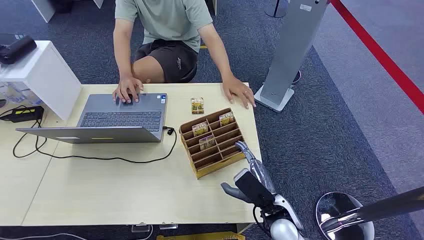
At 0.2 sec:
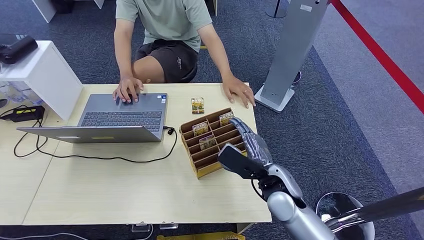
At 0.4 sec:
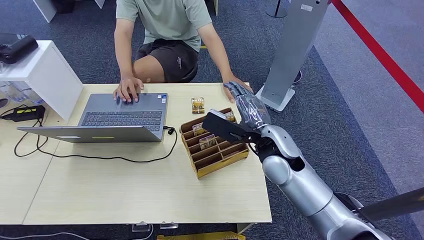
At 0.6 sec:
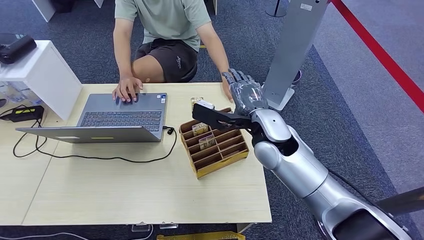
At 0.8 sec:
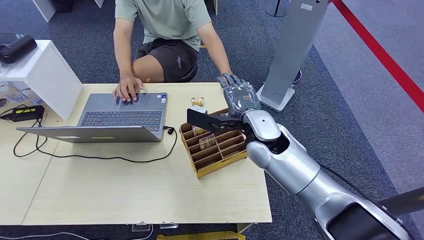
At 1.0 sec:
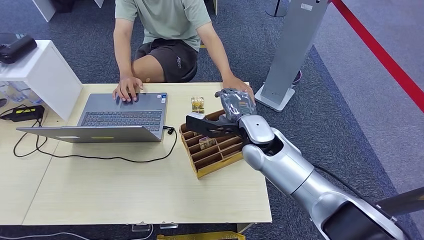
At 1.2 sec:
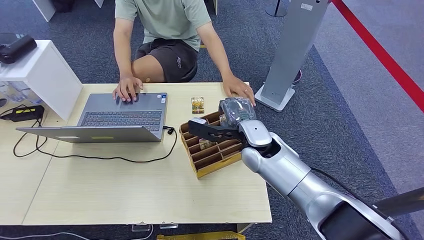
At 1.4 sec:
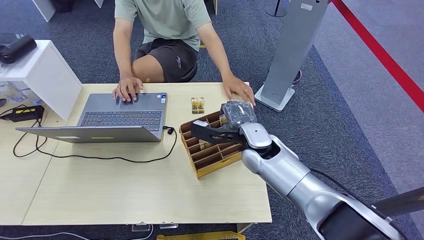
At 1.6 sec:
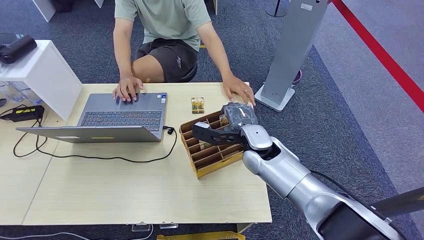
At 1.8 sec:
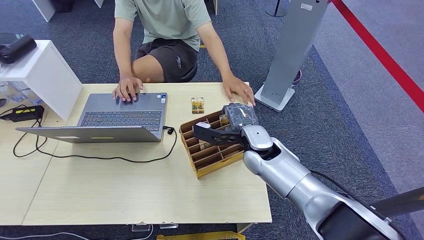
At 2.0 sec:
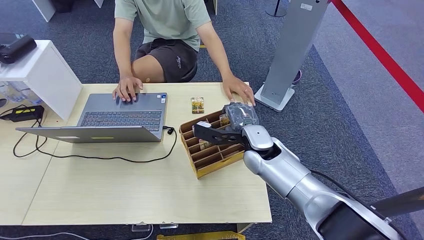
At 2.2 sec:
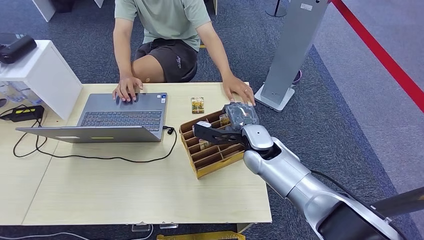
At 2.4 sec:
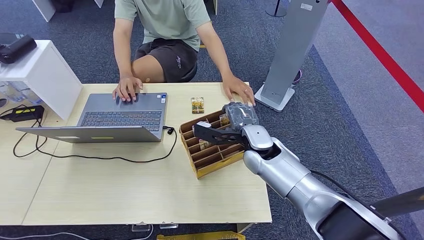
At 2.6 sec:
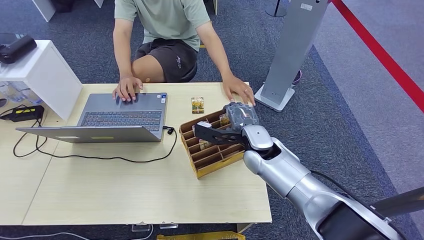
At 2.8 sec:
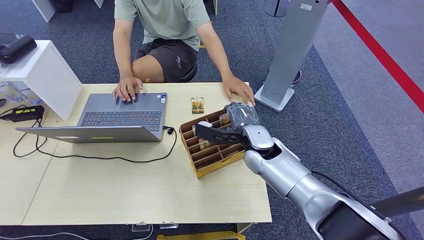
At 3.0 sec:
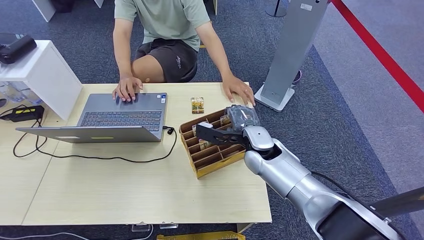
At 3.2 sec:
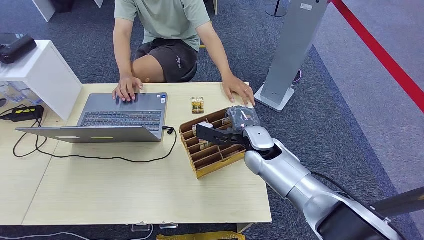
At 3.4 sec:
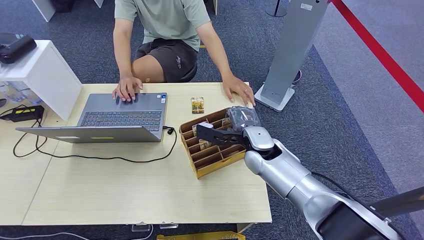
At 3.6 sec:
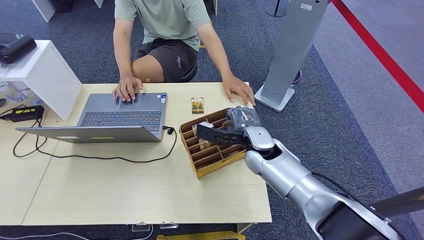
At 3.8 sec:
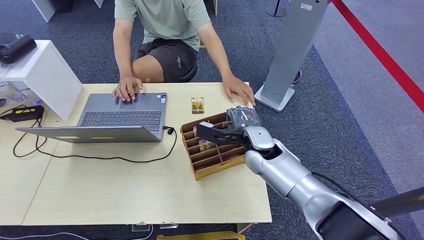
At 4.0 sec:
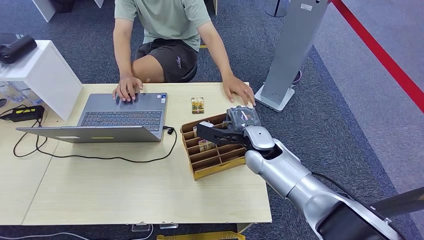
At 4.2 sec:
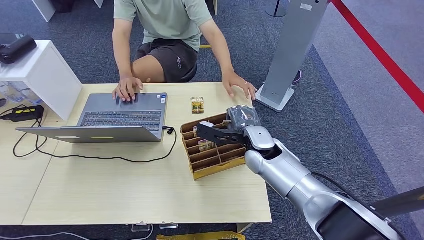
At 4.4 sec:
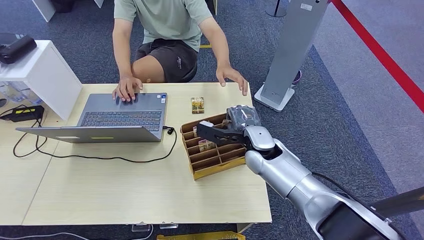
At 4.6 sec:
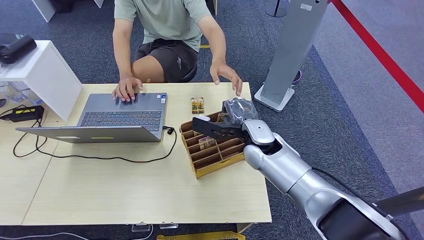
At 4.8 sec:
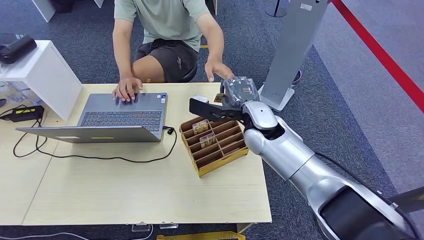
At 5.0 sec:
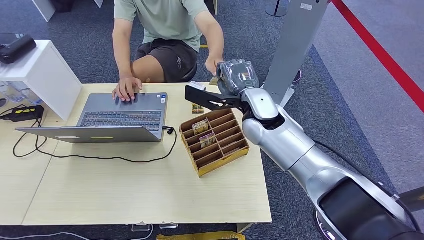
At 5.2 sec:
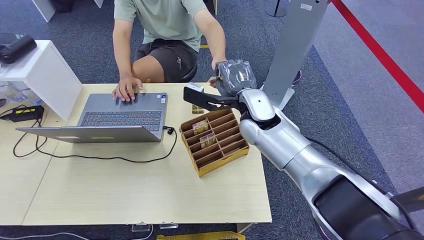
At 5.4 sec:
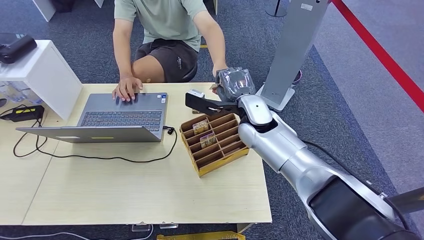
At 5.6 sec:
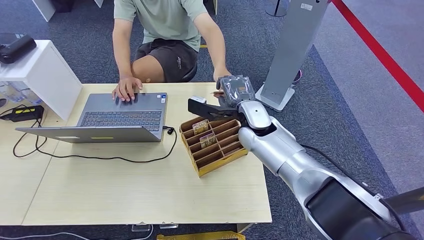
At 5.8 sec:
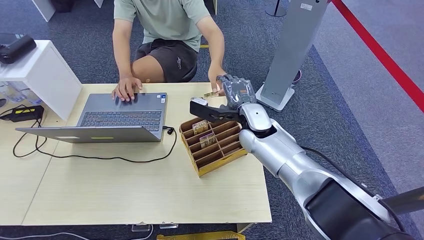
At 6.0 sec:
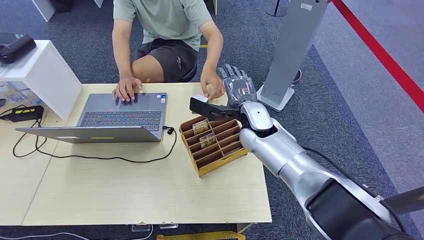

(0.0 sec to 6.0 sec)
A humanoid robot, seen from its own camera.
Step, 0.0 sec - 4.6 sec: Pick up the room card from the card holder.
Step, 5.0 sec - 6.0 sec: Hand the room card to the target.
1.6 sec - 3.0 sec: The two hands keep their place.
3.0 sec - 4.4 sec: Both hands stay put.
